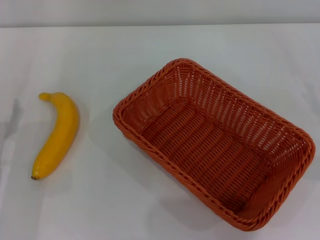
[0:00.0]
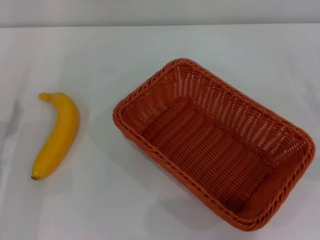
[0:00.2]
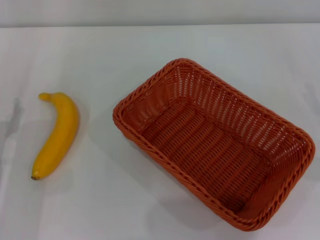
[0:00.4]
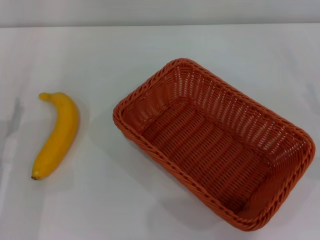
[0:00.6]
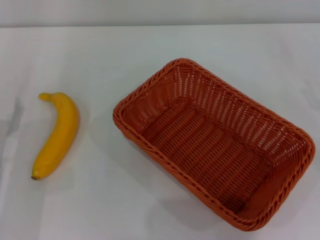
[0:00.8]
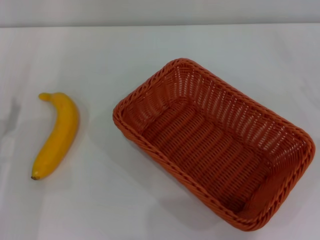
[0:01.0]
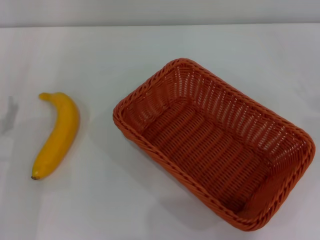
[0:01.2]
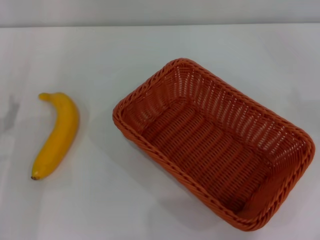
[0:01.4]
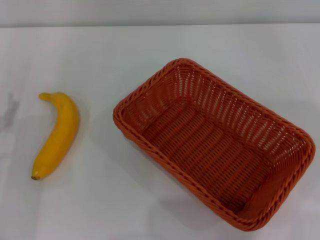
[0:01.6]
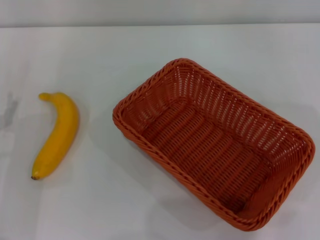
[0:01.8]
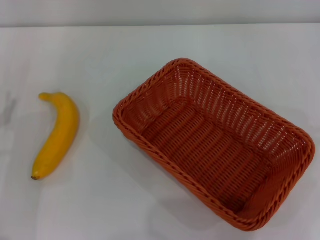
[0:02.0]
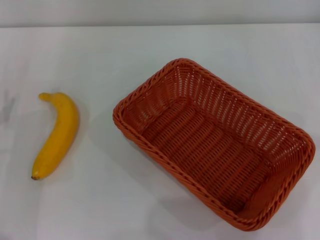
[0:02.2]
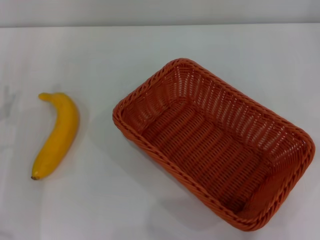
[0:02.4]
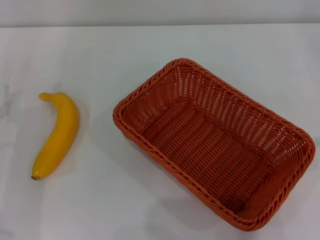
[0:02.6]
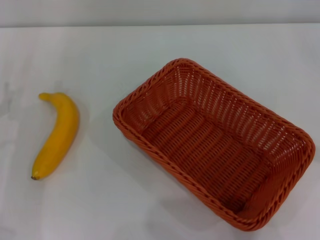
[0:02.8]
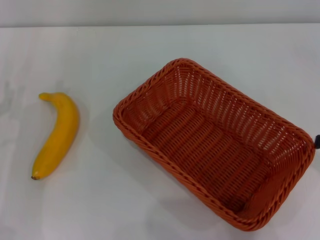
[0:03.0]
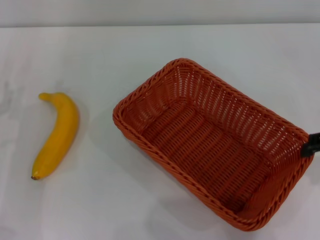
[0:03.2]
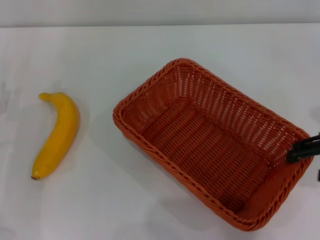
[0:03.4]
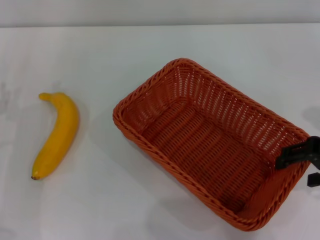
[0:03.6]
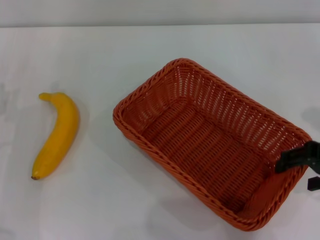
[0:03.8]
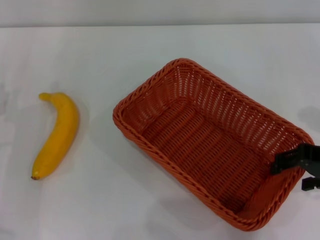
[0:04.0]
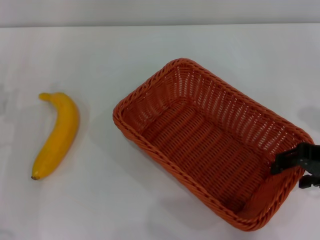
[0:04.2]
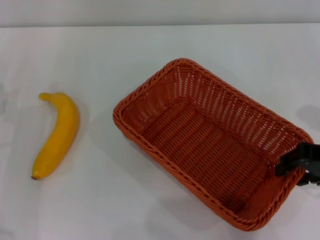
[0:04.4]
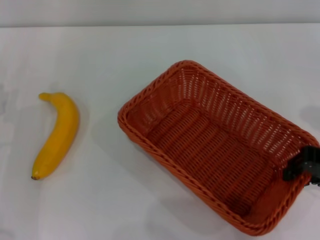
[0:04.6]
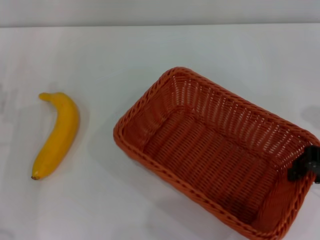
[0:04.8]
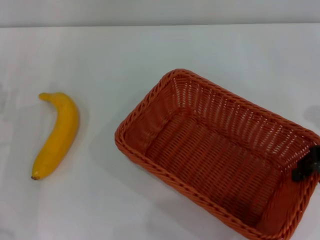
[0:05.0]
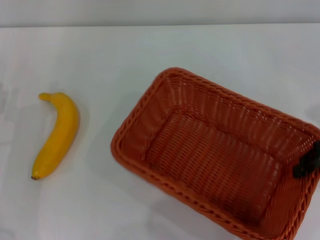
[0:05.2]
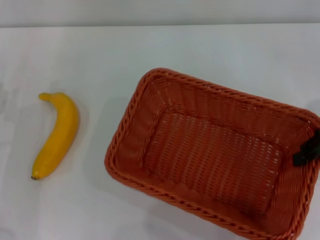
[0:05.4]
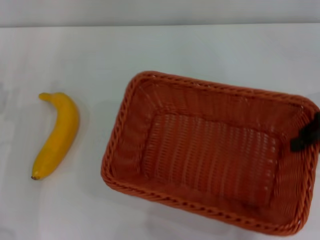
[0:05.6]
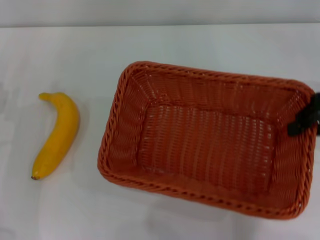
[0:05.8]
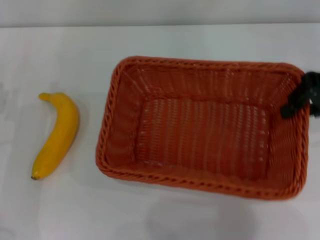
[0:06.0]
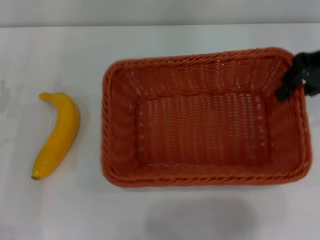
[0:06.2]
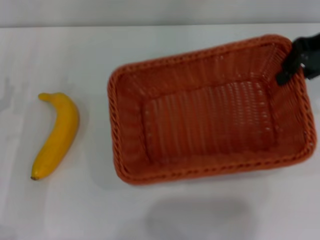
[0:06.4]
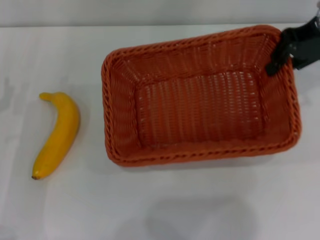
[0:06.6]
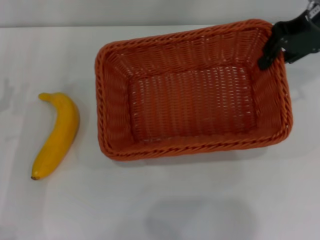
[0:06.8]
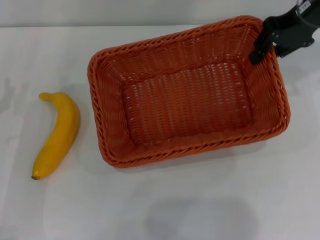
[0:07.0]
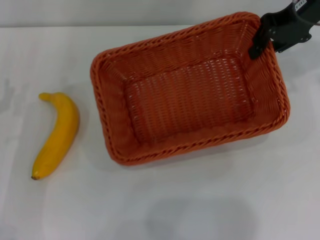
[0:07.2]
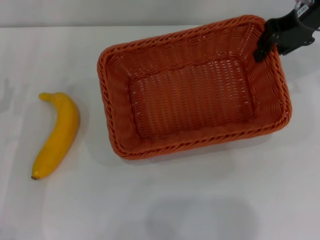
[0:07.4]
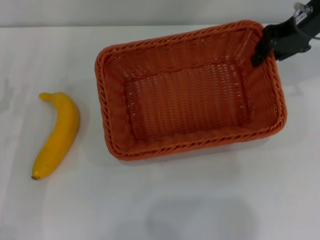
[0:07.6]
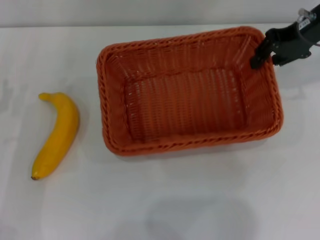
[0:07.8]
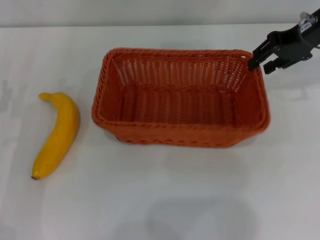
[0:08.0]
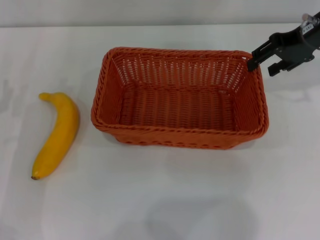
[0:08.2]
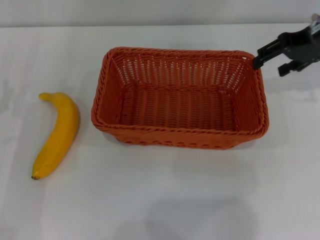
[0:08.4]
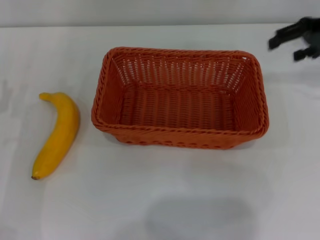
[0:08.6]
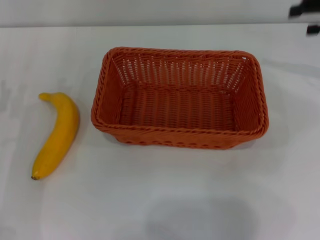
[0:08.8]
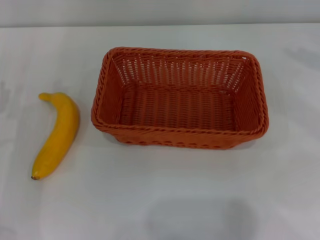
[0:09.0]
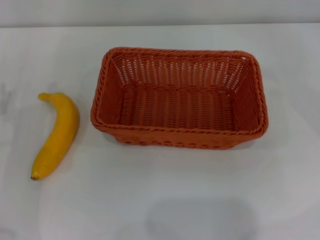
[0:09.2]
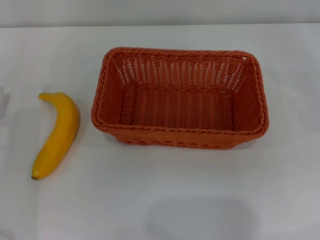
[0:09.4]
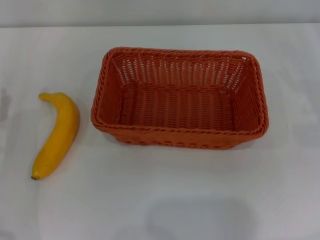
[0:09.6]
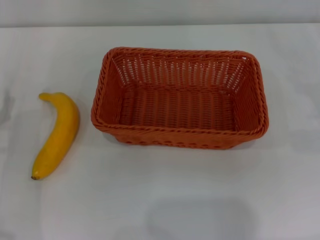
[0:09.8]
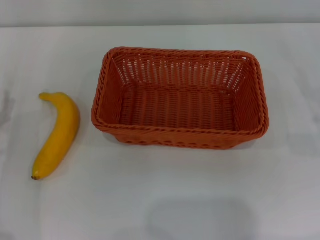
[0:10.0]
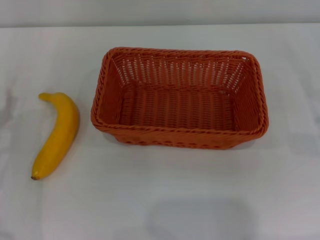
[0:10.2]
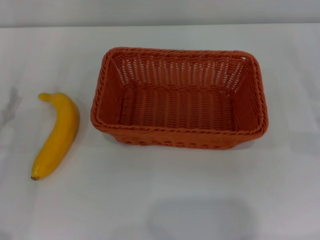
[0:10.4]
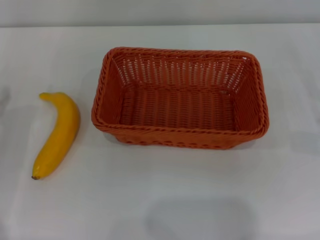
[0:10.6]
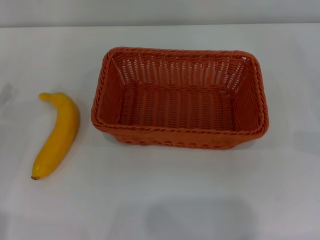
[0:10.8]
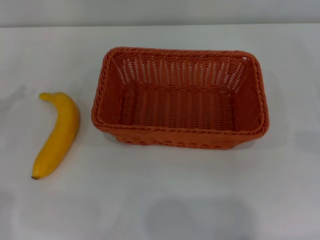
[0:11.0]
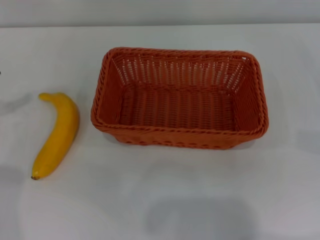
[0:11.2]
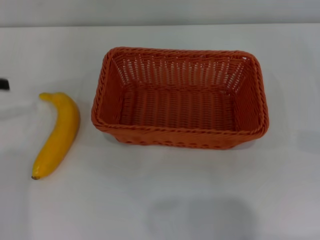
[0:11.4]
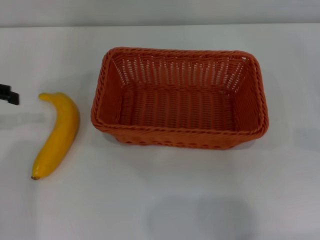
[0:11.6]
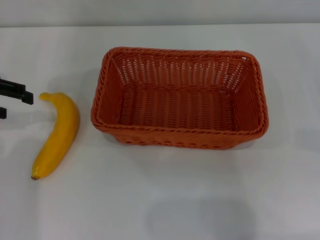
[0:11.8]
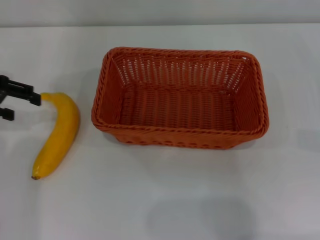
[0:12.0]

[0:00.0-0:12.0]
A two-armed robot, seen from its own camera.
Step, 0:00.0 to 0:05.2: Pick up the light basket with the right gripper.
Step, 0:05.4 to 0:08.4: Place the light basket in the center of view with the right gripper.
0:03.0 to 0:04.4: The right gripper shifts by roughly 5 cm.
0:04.4 to 0:06.0: The right gripper shifts roughly 10 cm forward and upward, and closes its fingers.
0:06.0 to 0:07.6: The right gripper heads forward, covering about 10 cm.
0:07.6 to 0:09.0: The right gripper heads to the right, covering roughly 15 cm, and opens.
0:10.4 to 0:12.0: The left gripper heads upward and forward, covering about 20 cm.

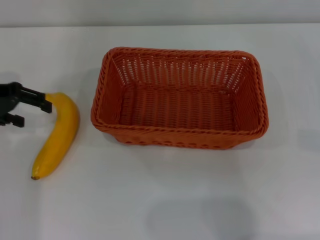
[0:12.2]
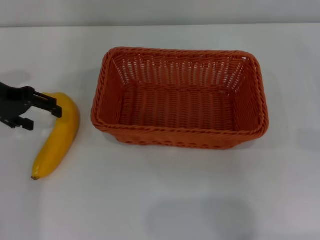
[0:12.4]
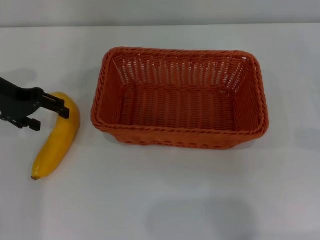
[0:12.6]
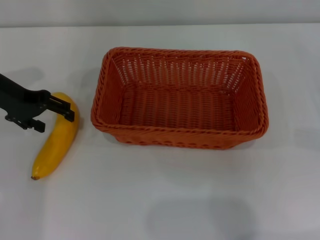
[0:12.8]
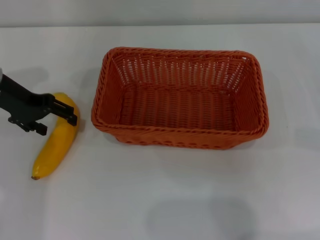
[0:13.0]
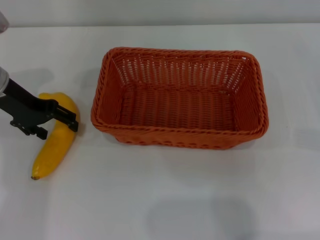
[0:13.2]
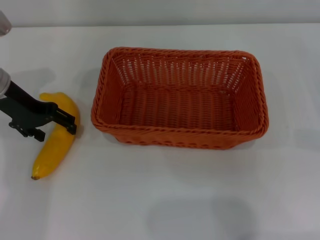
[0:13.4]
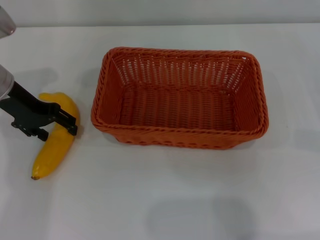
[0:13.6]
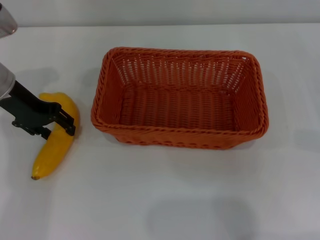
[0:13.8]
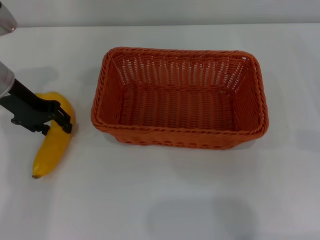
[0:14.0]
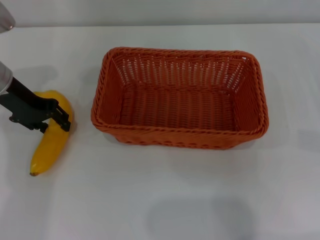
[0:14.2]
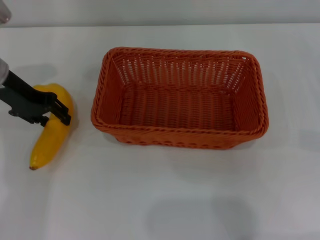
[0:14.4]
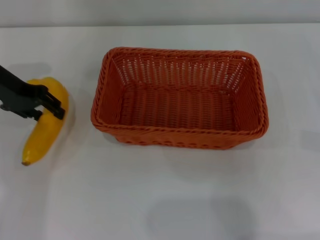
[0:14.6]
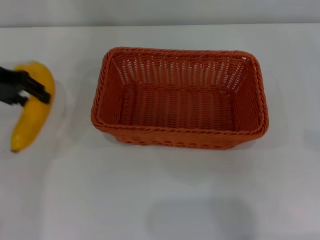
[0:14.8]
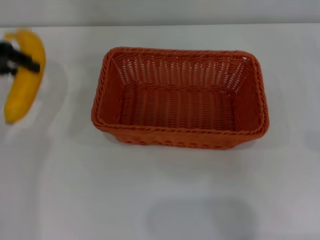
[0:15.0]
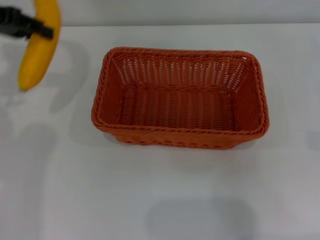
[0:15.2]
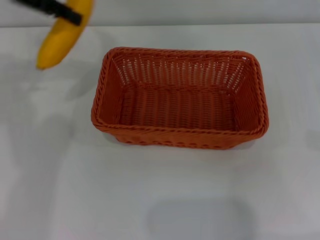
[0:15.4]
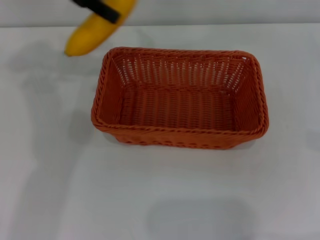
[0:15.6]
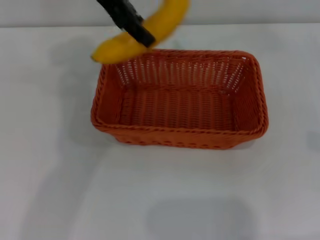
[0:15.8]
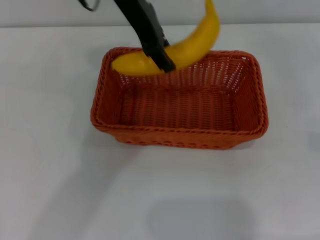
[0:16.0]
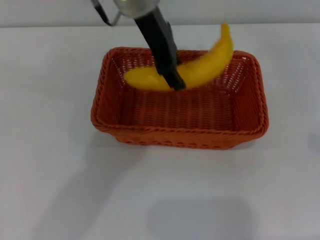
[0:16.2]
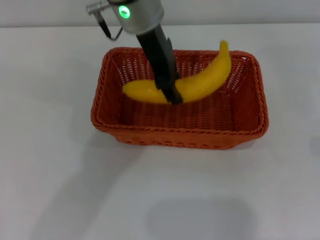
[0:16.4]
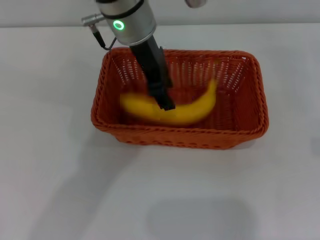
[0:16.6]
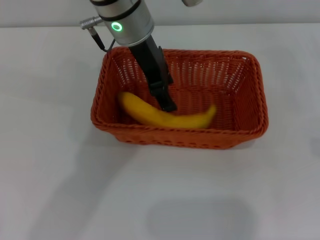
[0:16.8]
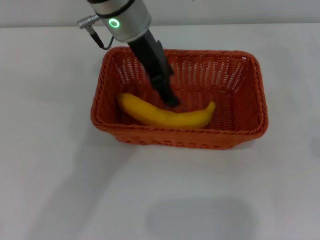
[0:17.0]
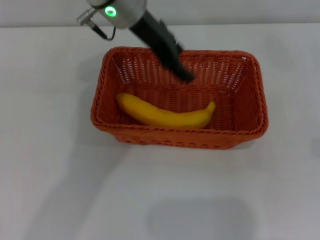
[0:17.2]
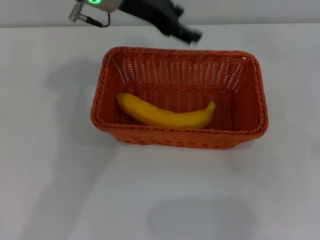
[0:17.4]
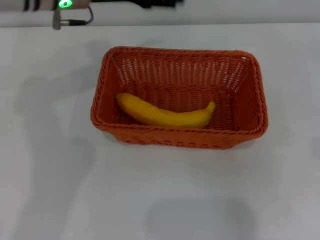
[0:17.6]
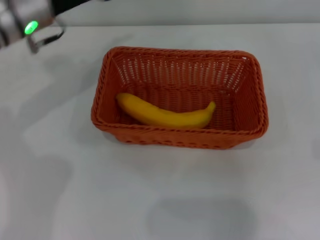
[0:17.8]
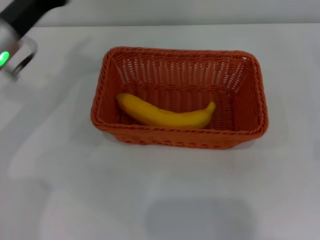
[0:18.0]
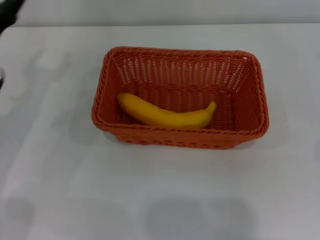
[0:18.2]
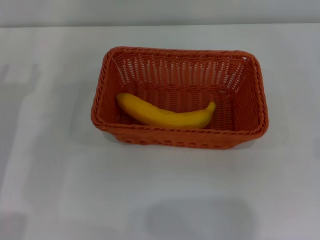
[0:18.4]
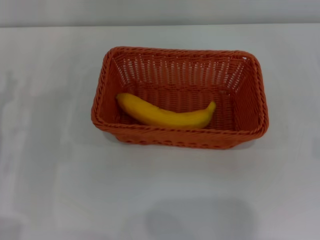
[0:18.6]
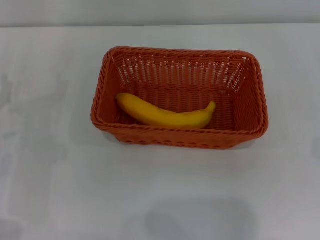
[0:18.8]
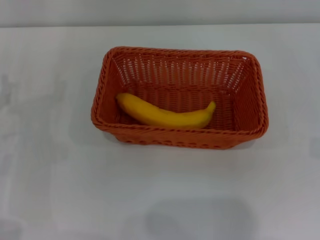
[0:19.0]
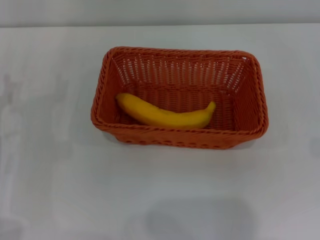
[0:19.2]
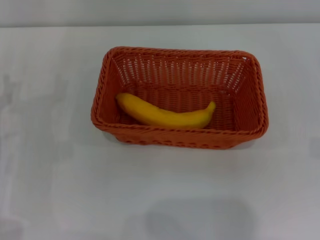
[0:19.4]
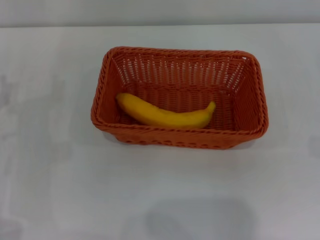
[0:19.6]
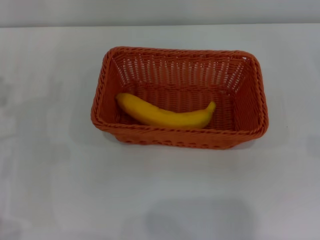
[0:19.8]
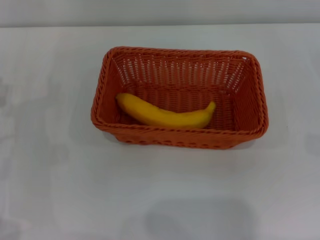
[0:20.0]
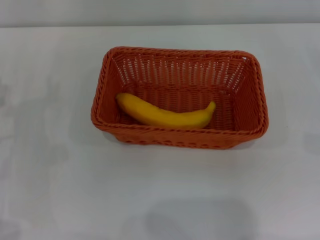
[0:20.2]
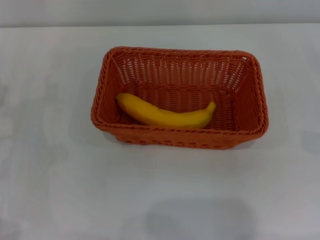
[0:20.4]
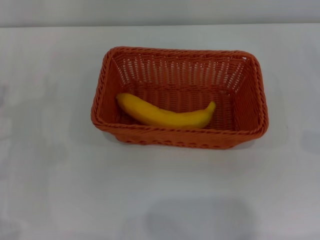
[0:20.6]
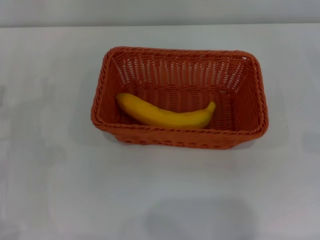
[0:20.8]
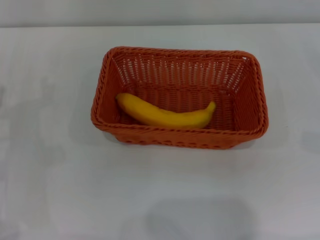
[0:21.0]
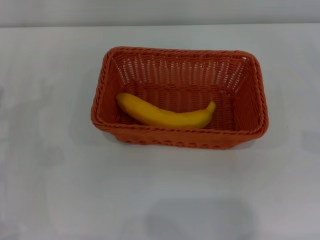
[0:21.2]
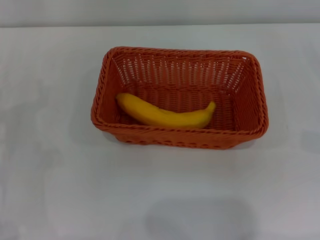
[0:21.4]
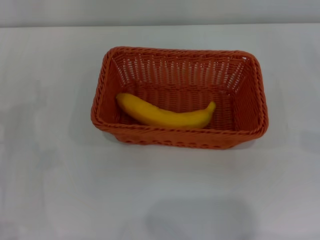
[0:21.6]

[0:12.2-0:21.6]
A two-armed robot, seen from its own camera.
Step, 0:12.2 to 0:15.0: Pick up the banana with the left gripper.
Step, 0:15.2 to 0:17.4: Place the banana into the light basket with the left gripper.
0:12.2 to 0:13.8: The left gripper is displaced to the right by roughly 5 cm.
0:13.8 to 0:15.4: The left gripper shifts about 15 cm upward, and closes up.
0:15.4 to 0:17.0: The left gripper heads to the right, covering approximately 20 cm, and opens up.
0:17.0 to 0:18.4: The left gripper goes about 30 cm to the left, downward and backward.
0:20.0 to 0:21.6: Both grippers stay about where they are.
